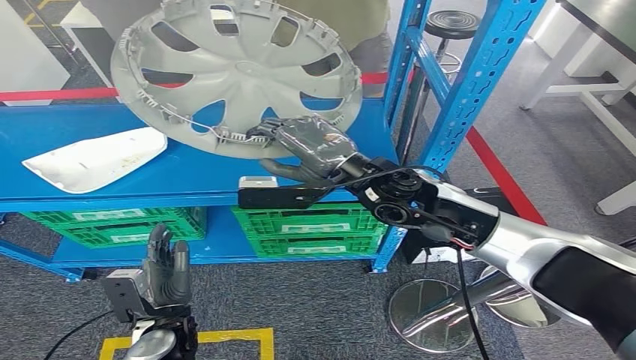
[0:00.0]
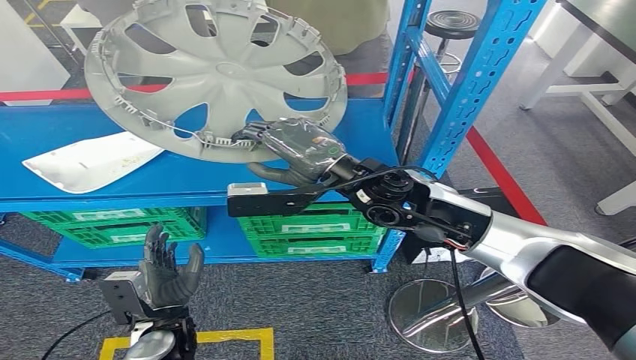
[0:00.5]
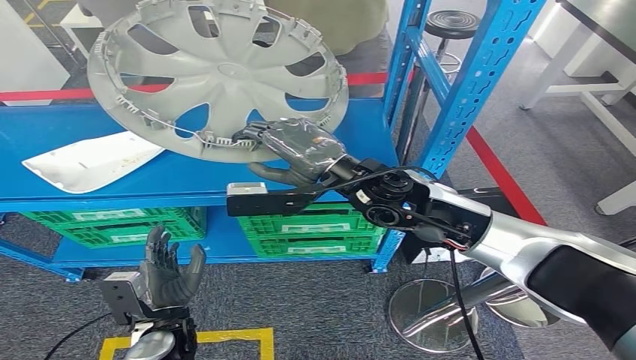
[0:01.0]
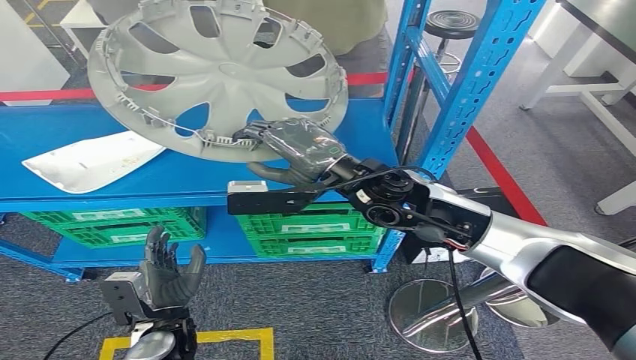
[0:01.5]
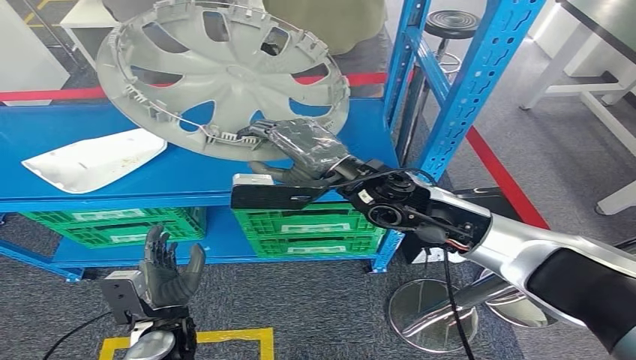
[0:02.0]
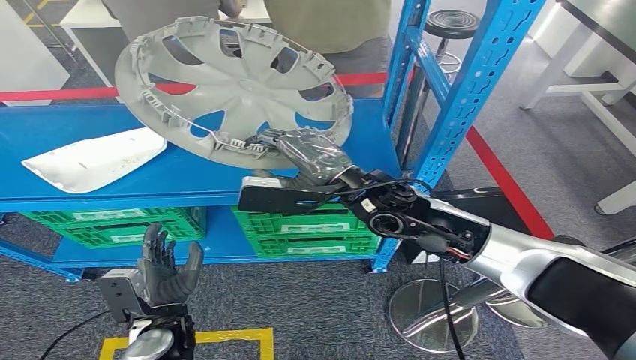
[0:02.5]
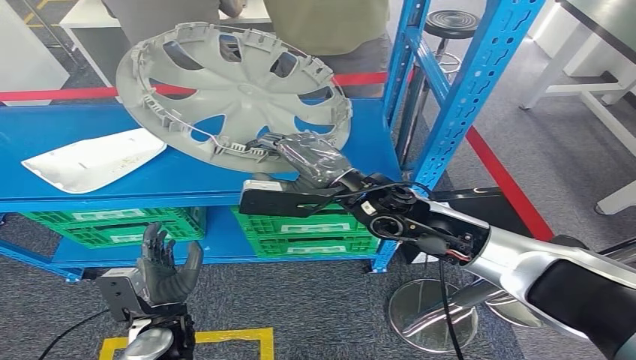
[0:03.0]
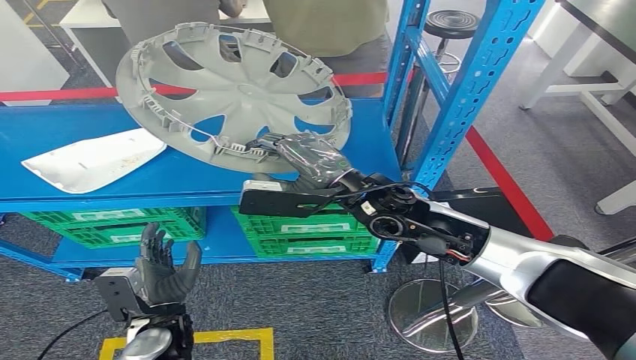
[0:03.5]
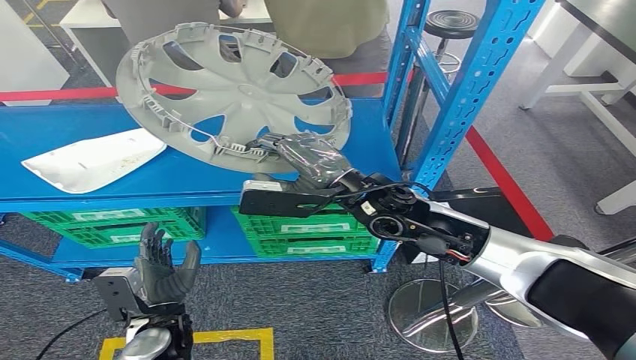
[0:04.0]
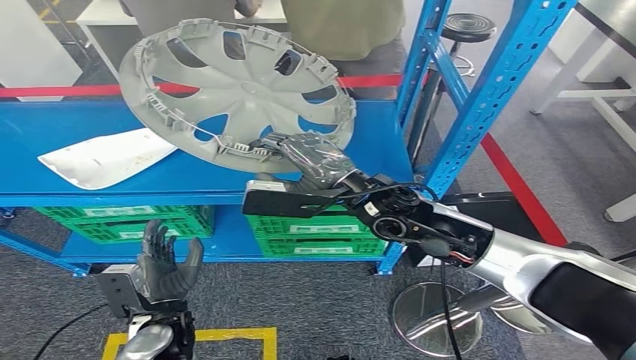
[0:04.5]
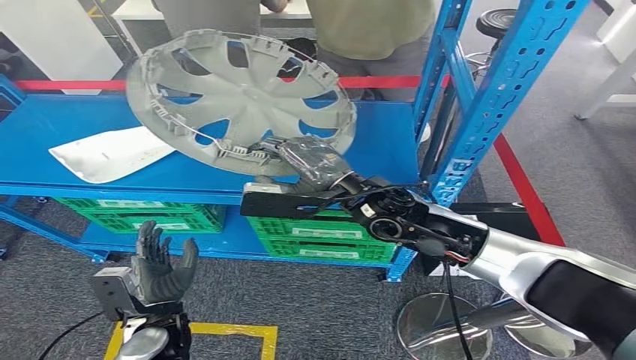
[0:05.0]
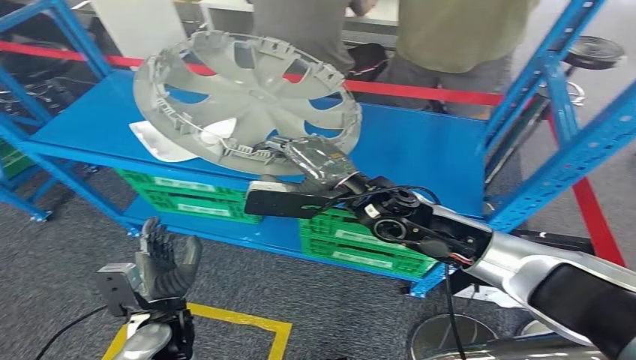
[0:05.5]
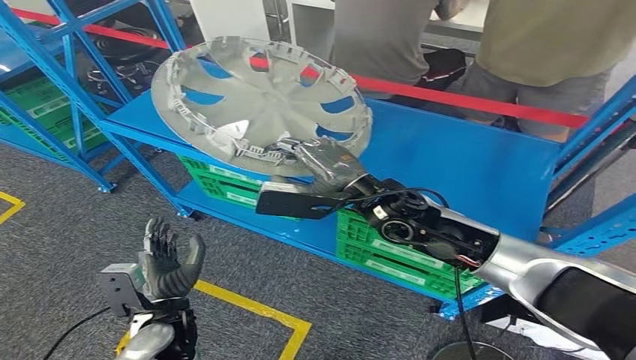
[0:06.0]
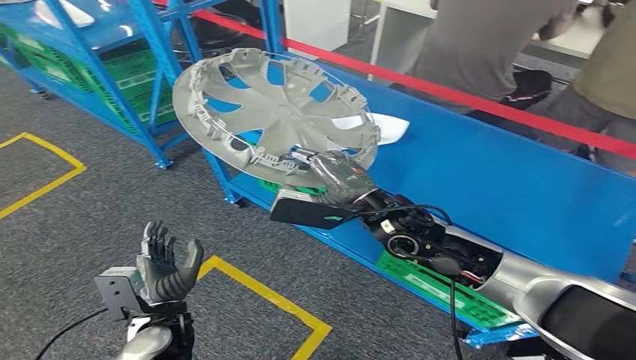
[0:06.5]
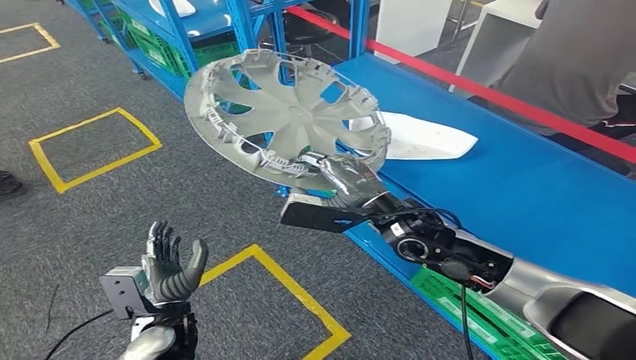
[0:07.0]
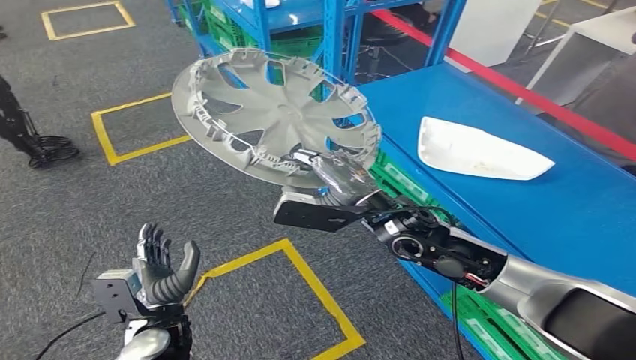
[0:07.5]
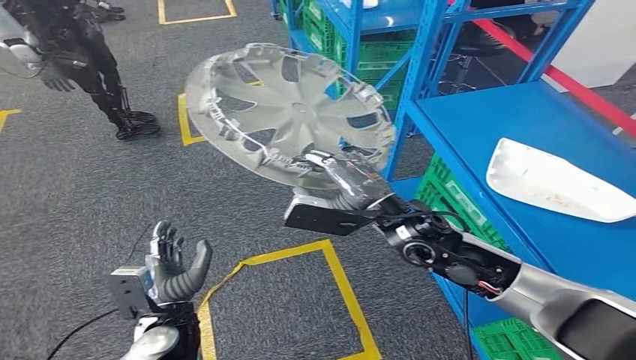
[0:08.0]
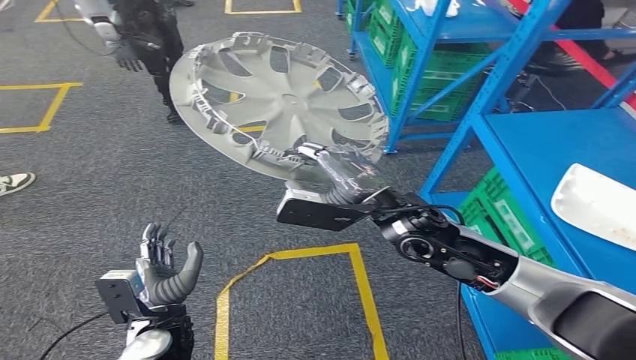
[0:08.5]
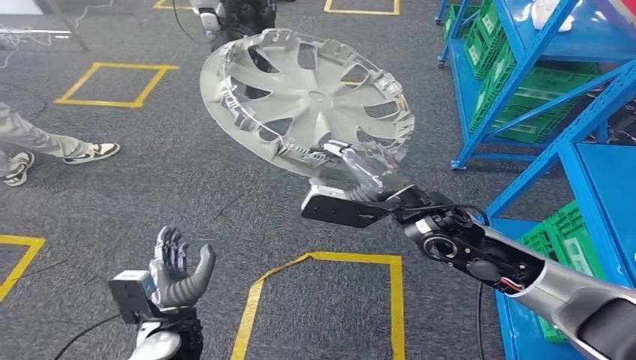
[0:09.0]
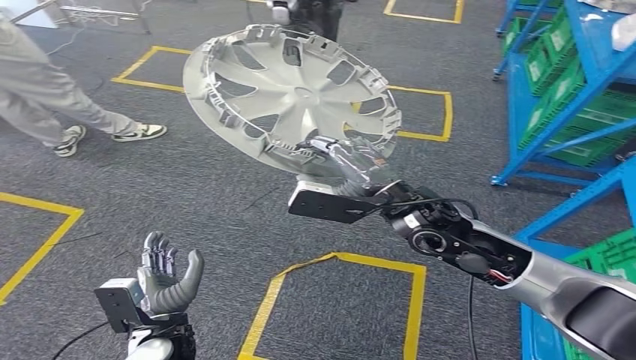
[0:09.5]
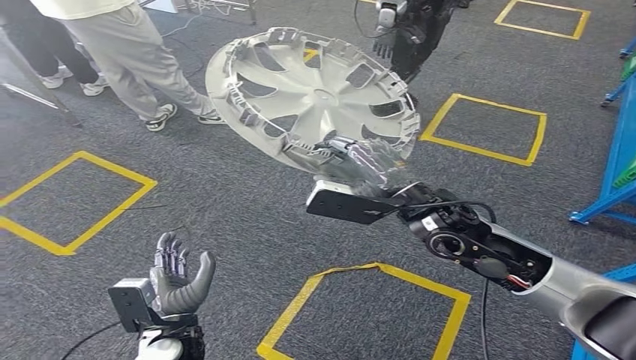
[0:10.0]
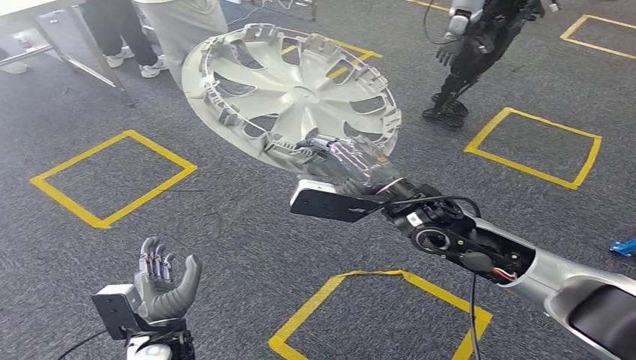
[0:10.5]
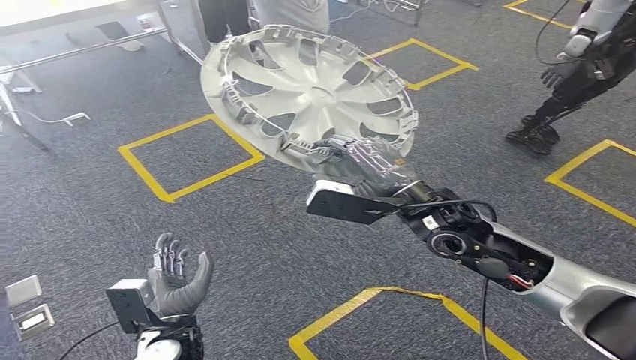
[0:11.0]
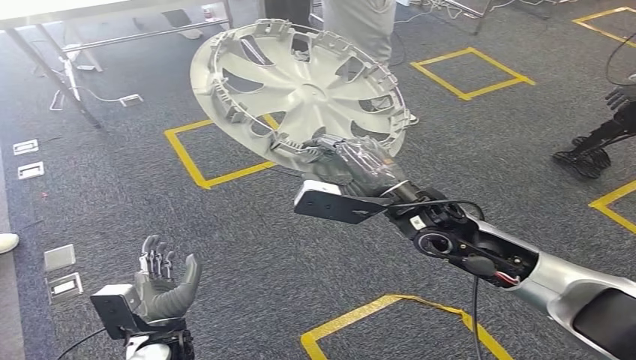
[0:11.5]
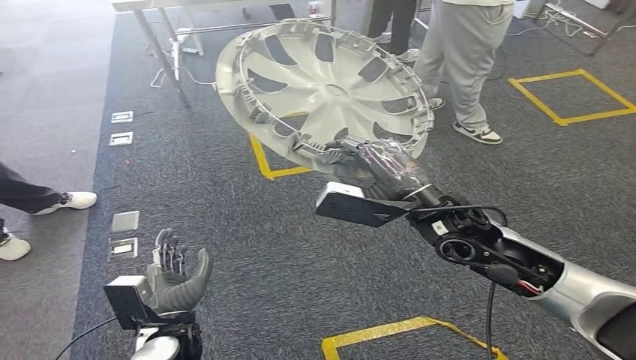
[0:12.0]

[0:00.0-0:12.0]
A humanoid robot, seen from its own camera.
0:00.0 to 0:04.0: The hands stay close to where they were, moving slightly.

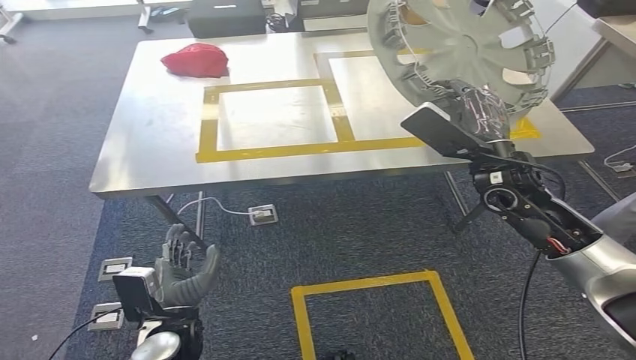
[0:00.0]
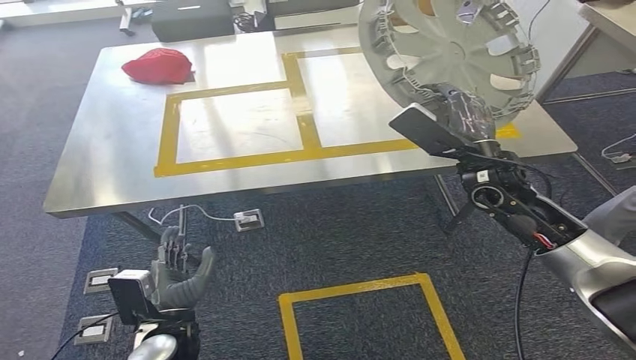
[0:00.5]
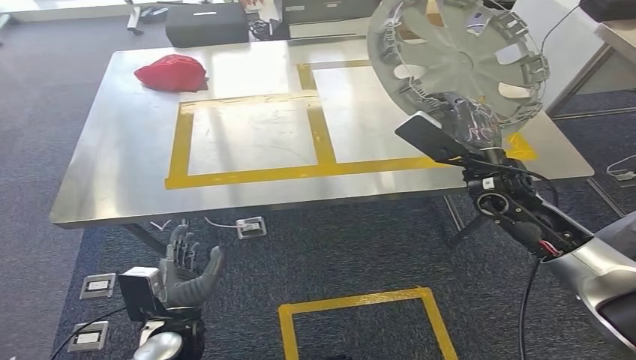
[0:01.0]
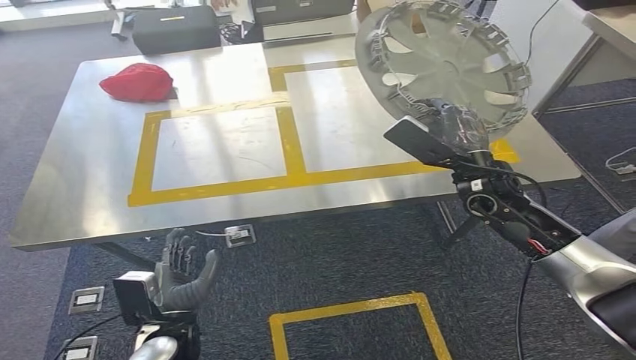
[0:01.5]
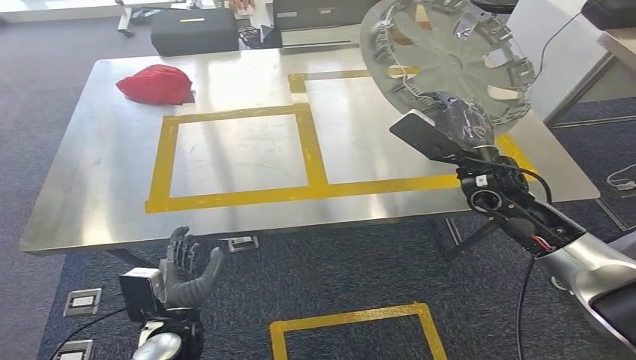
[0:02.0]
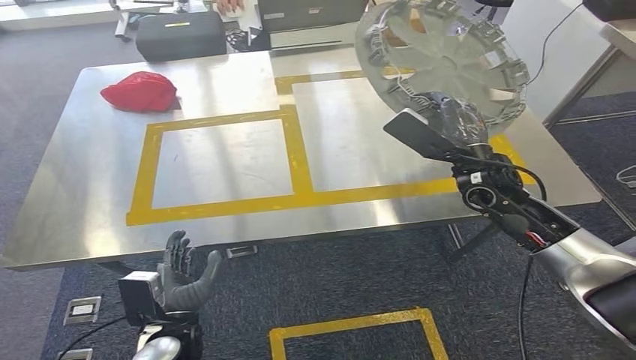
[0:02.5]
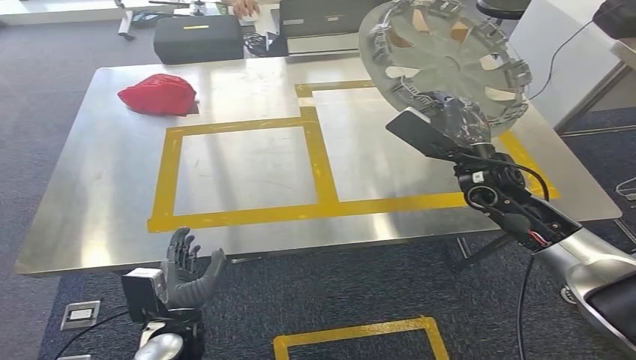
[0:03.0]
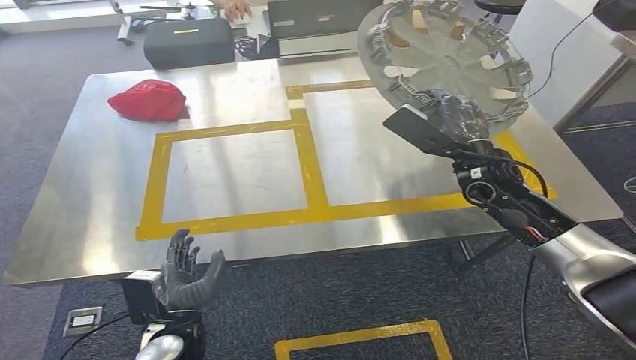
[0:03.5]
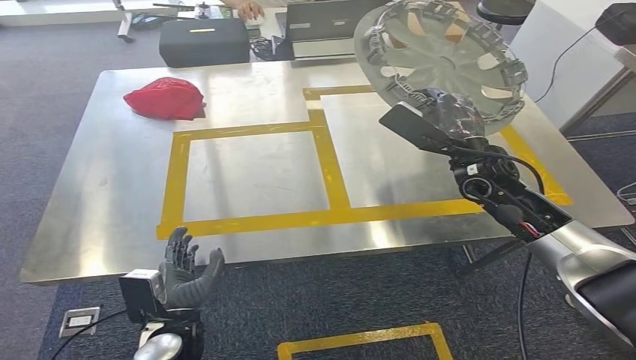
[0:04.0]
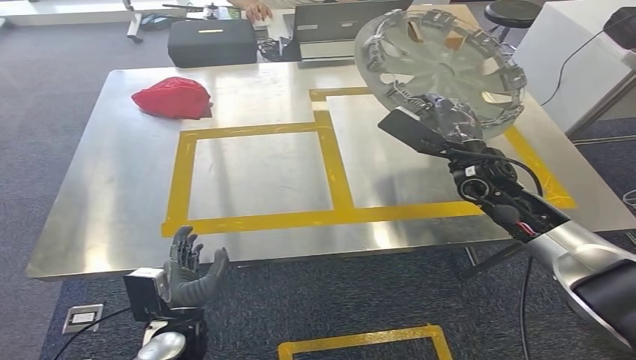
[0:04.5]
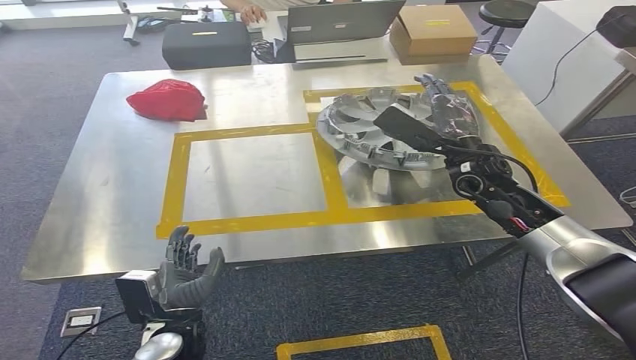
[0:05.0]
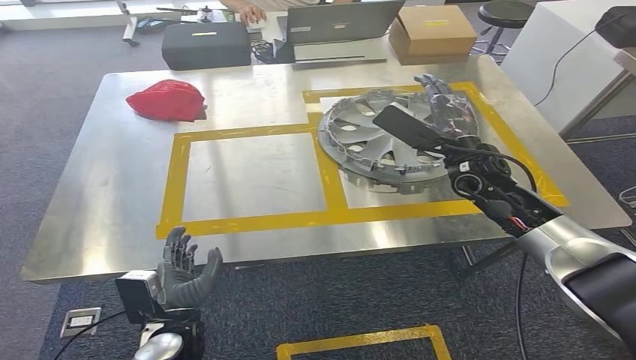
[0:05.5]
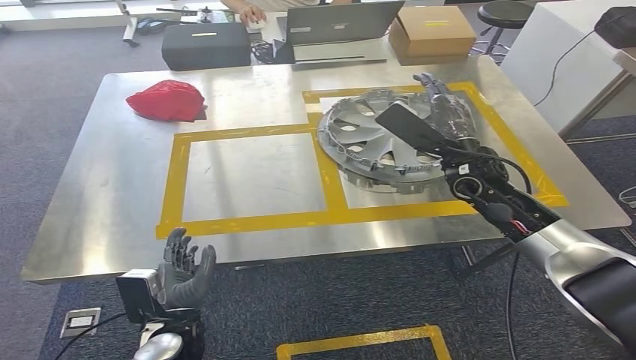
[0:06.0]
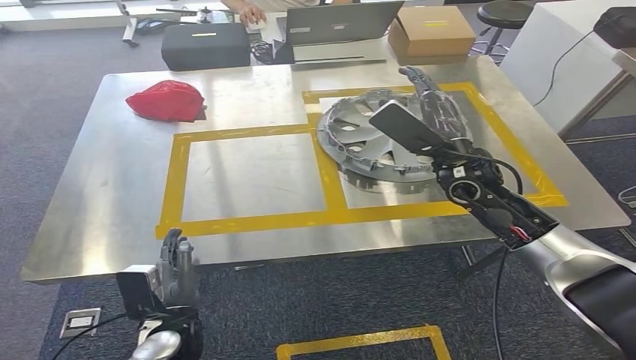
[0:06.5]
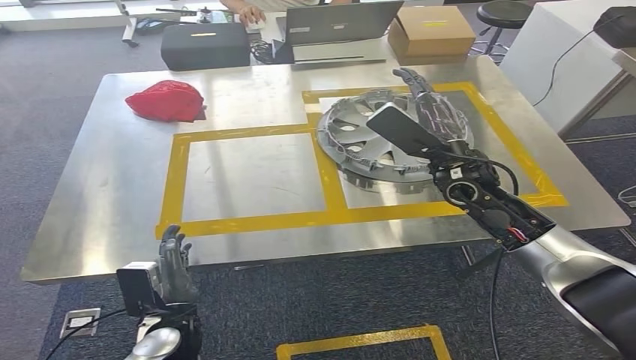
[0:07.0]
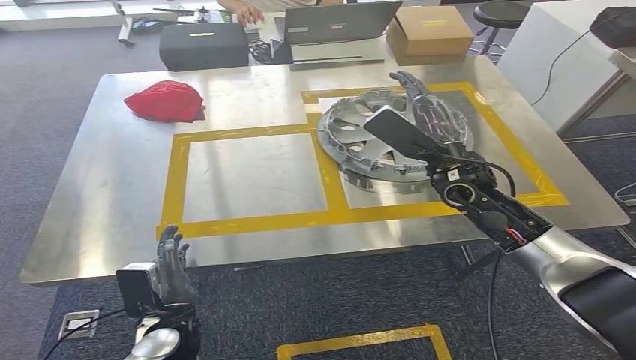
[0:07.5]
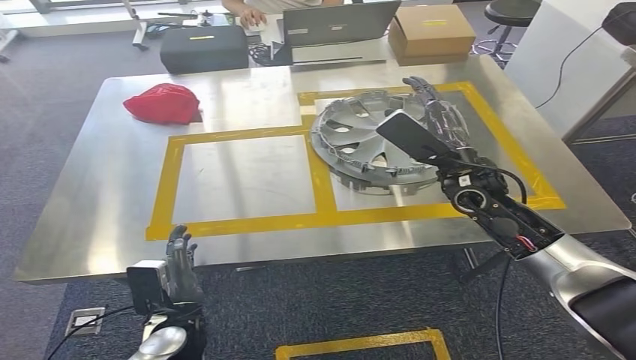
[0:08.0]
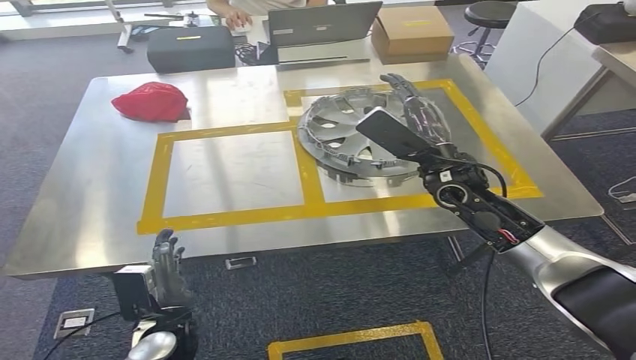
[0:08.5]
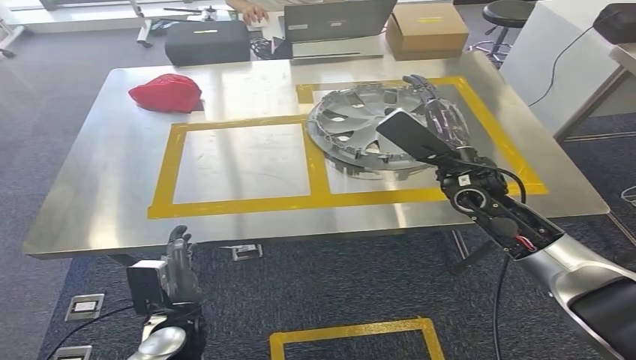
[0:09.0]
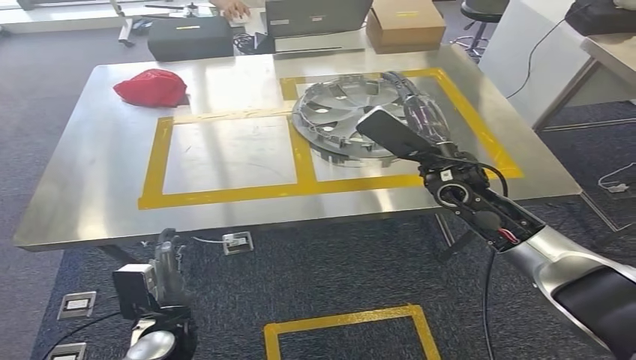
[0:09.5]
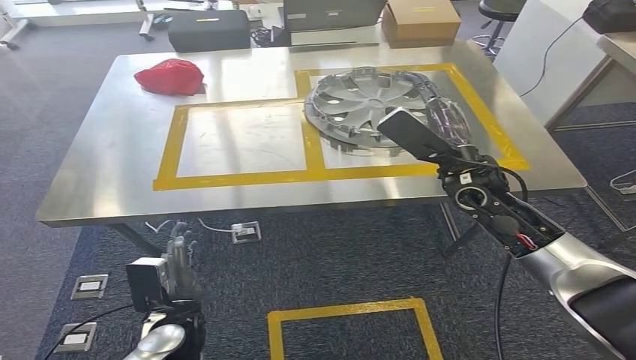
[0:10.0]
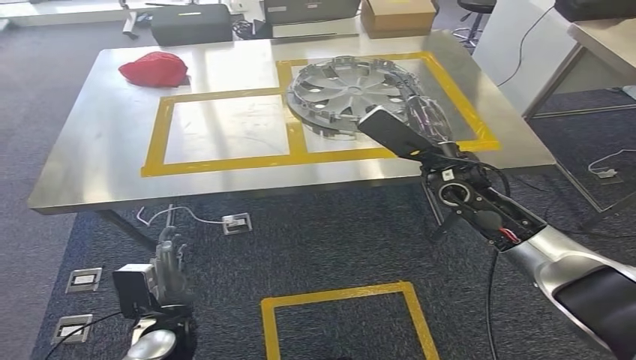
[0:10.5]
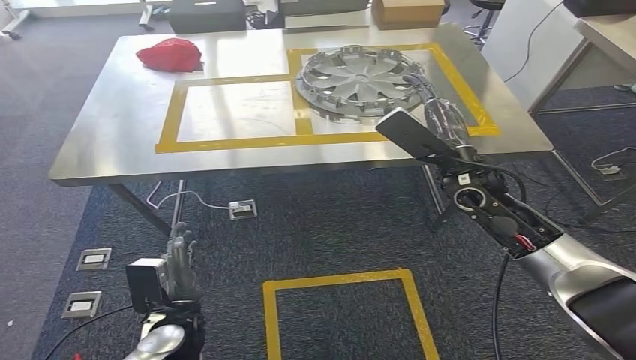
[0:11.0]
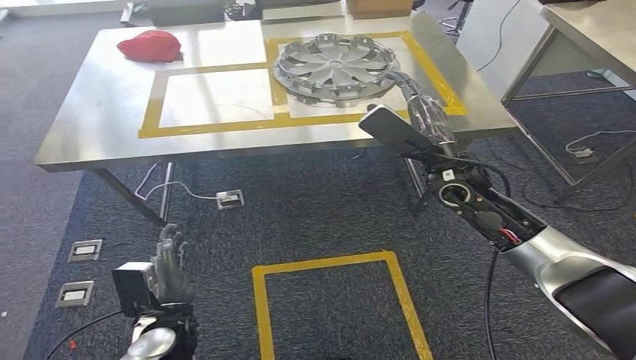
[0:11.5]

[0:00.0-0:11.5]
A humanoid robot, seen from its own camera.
Step, 0:02.0 to 0:06.5: Insert the small parts into the corresponding slots on the workbench.
0:04.0 to 0:07.5: The hands stay close to where they were, moving slightly.
